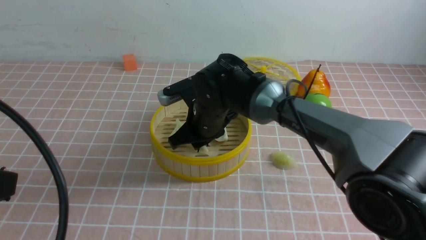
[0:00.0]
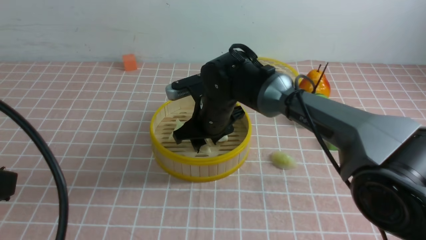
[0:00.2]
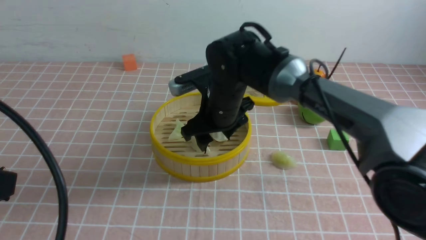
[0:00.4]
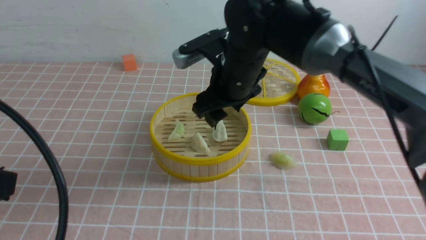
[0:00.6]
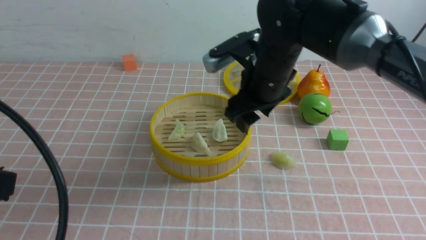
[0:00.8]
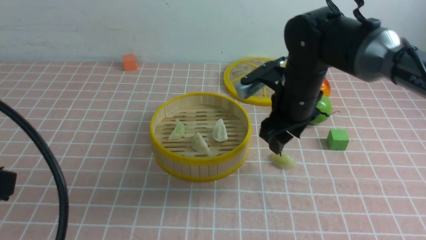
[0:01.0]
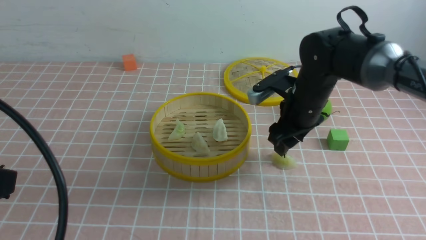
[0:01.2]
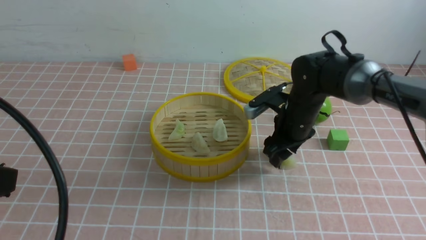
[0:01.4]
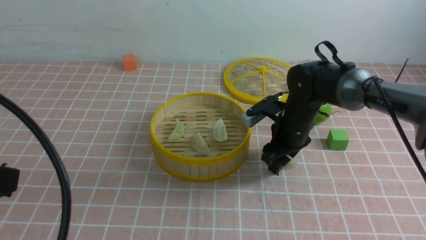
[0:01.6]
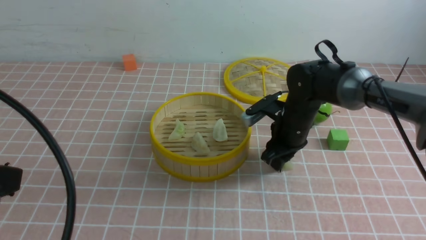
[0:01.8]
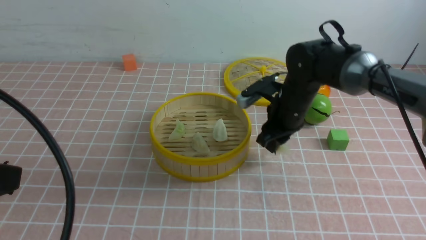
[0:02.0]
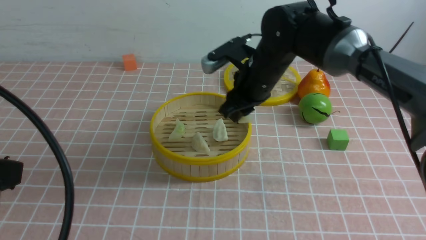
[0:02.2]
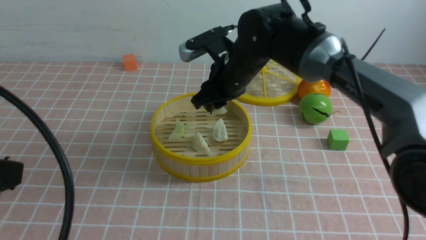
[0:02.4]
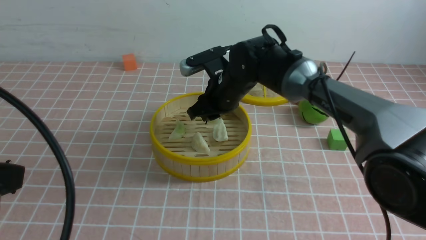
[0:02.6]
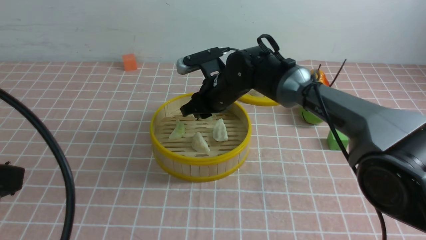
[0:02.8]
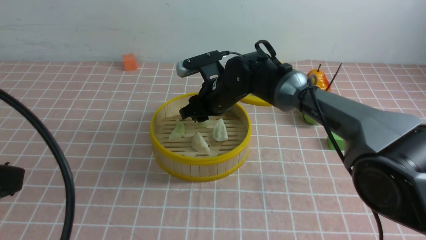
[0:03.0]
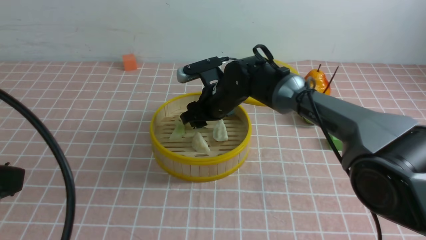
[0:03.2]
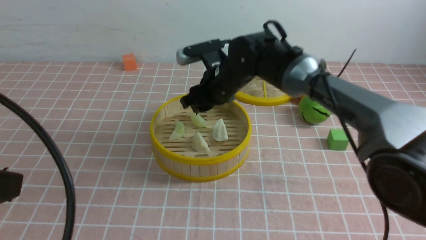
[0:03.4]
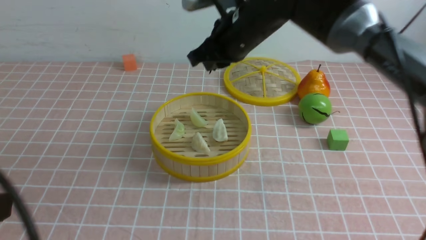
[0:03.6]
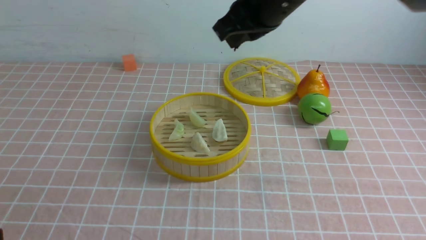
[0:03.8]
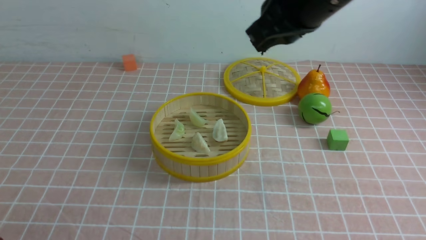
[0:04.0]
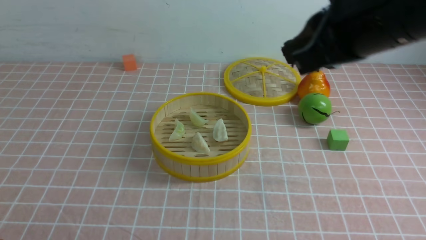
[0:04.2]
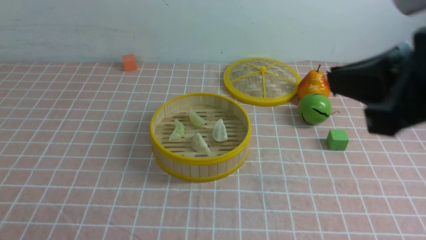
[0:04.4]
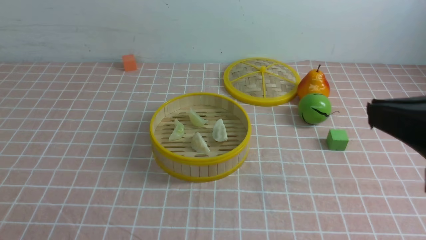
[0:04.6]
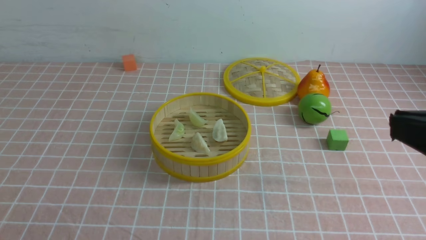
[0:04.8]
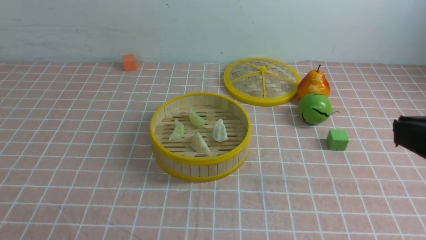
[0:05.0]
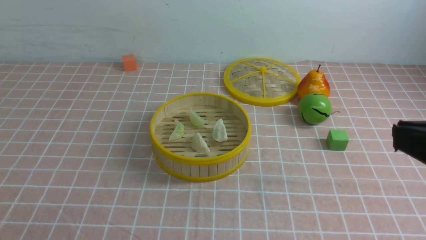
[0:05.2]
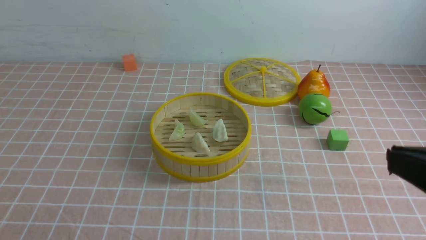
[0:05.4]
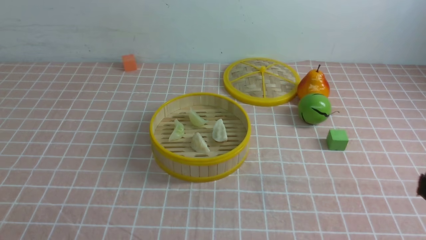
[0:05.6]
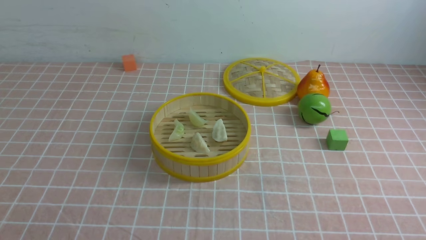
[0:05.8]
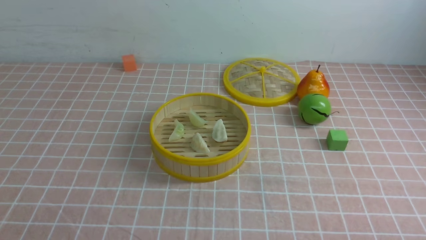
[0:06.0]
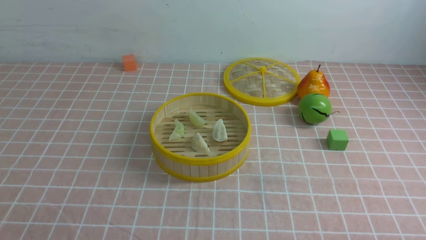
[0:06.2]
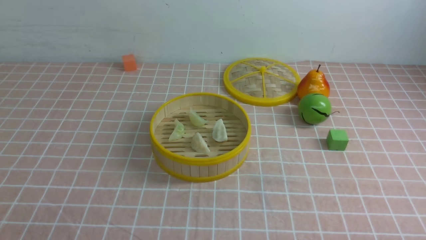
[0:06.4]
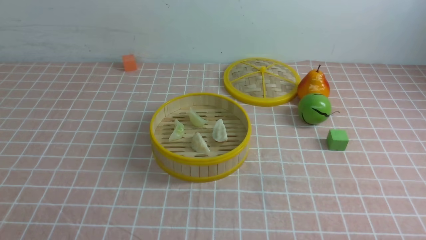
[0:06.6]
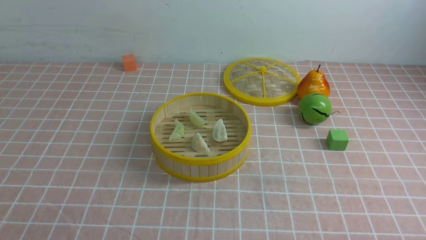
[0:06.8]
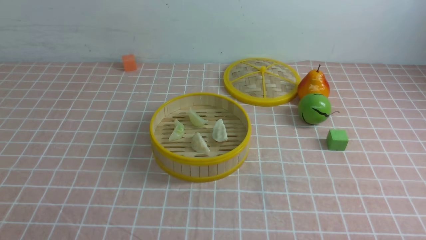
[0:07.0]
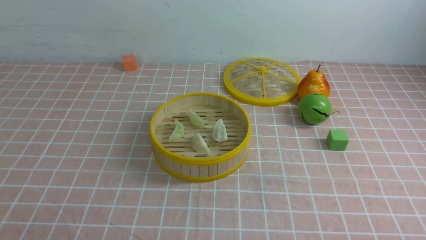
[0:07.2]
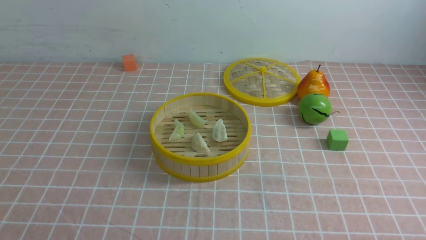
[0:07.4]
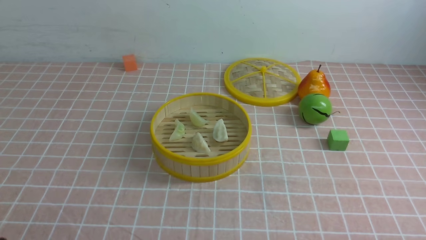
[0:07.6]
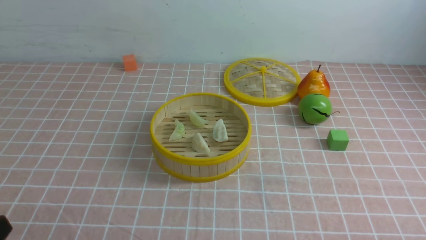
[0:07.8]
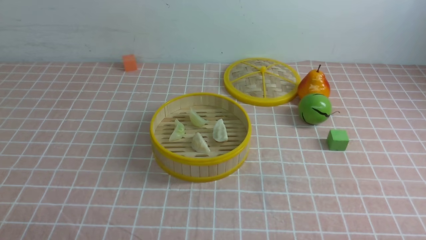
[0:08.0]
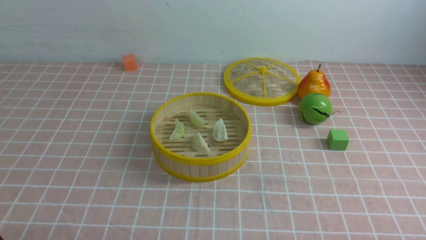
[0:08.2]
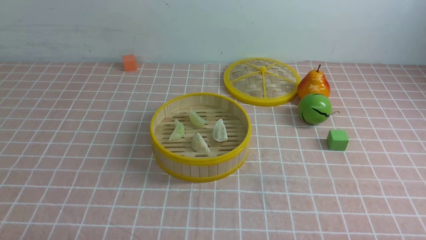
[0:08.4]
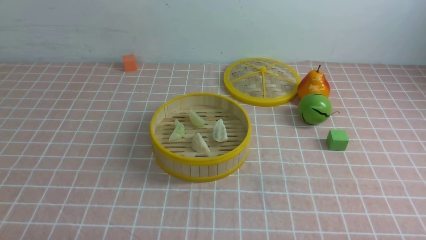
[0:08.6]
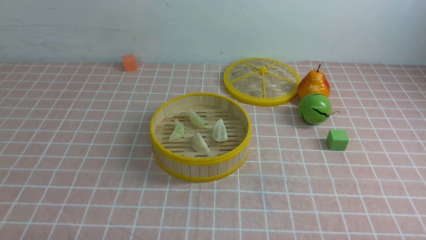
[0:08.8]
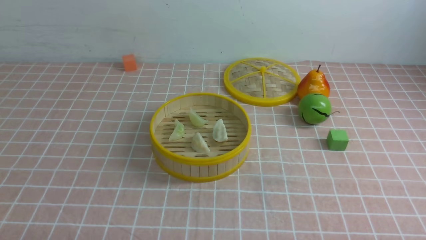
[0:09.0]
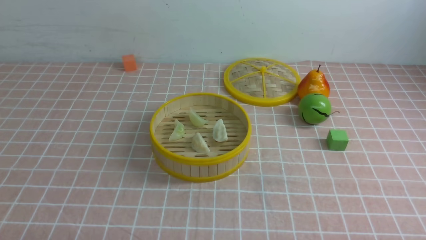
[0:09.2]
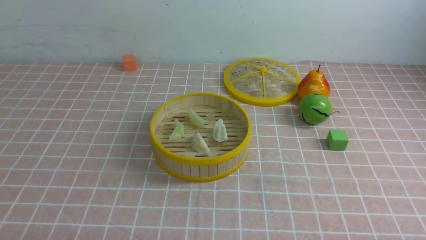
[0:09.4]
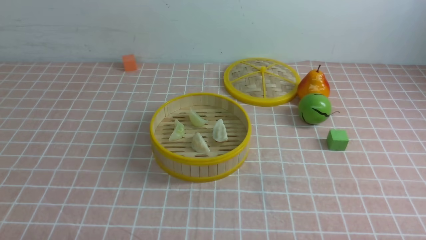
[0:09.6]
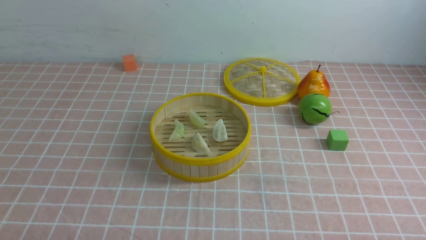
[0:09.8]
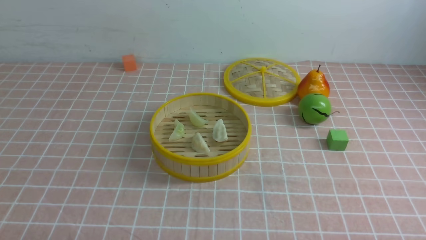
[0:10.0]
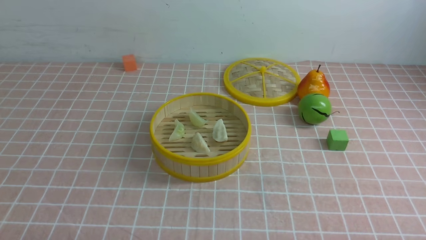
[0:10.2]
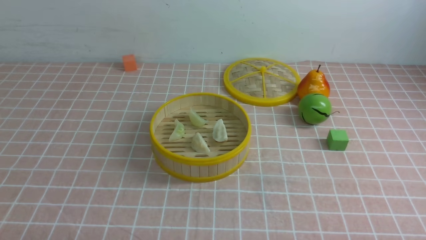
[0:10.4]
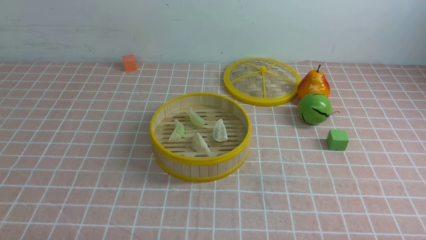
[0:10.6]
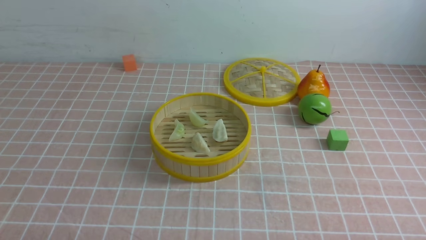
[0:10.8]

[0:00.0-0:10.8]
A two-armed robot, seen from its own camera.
Task of the whole recording: put the dumplings into the steamer on the table with the pink tablecloth.
Step, 0:00.6 to 0:01.8: use the right arm to grab a dumpling.
Step, 0:02.0 to 0:03.6: use the right arm to put the dumpling into the steamer.
0:00.0 to 0:01.6: The right gripper moves to the right, some 15 cm.
0:01.6 to 0:03.0: The right gripper heads to the left, covering about 15 cm.
0:03.0 to 0:04.6: The right gripper goes about 40 cm backward, to the right and upward, and closes. The left gripper is displaced downward and backward by some 10 cm.
0:04.6 to 0:06.2: The right gripper is displaced downward and to the right by about 25 cm.
0:09.2 to 0:10.8: Neither gripper changes place.

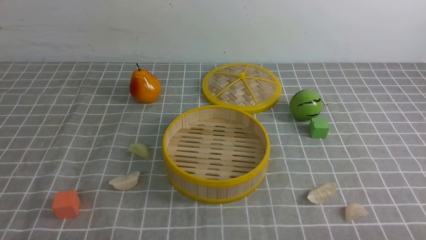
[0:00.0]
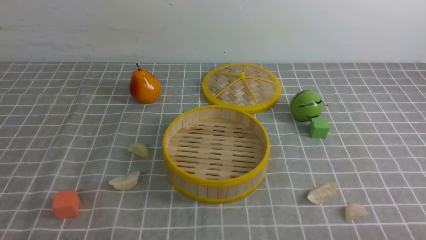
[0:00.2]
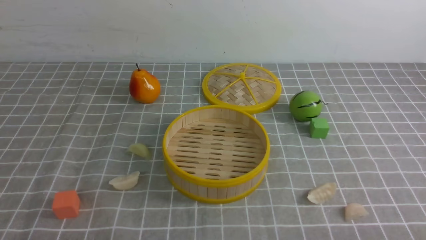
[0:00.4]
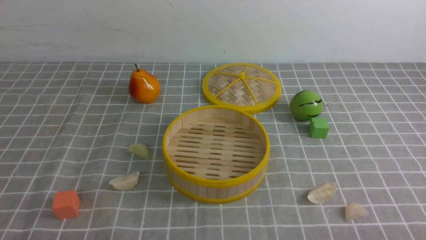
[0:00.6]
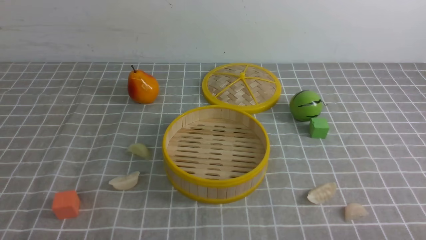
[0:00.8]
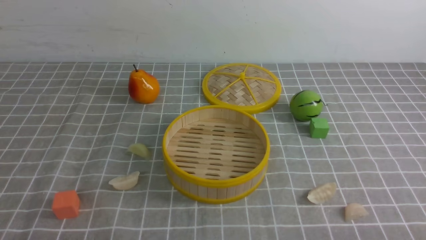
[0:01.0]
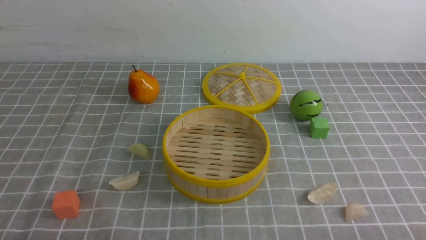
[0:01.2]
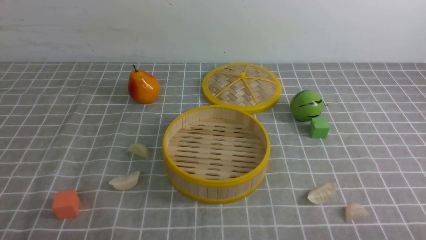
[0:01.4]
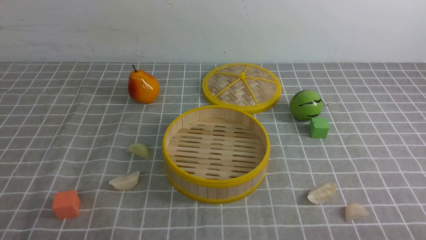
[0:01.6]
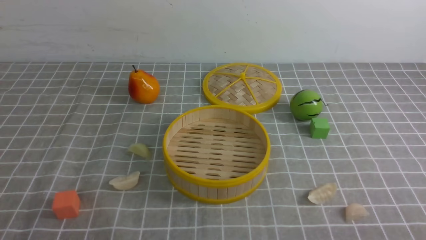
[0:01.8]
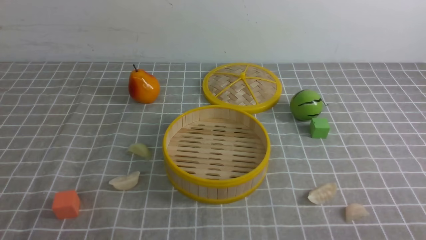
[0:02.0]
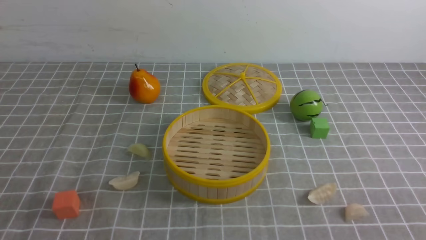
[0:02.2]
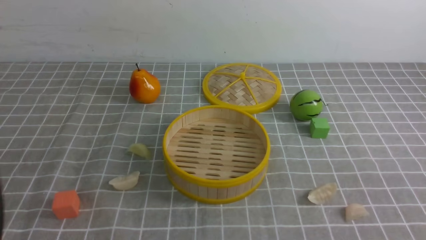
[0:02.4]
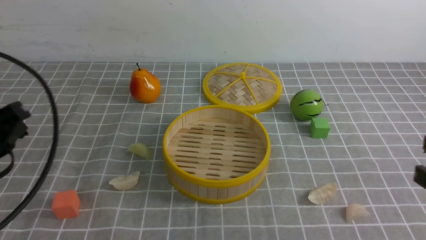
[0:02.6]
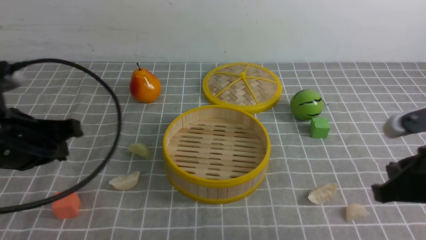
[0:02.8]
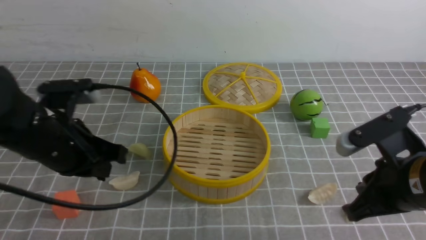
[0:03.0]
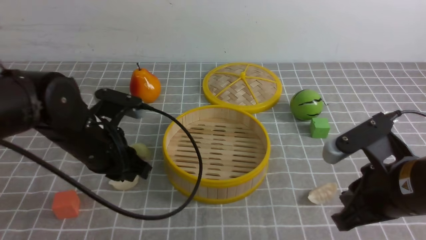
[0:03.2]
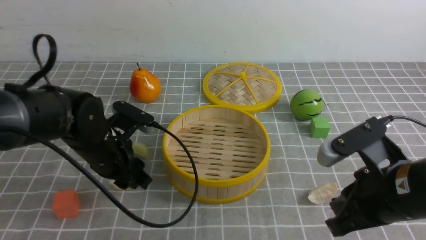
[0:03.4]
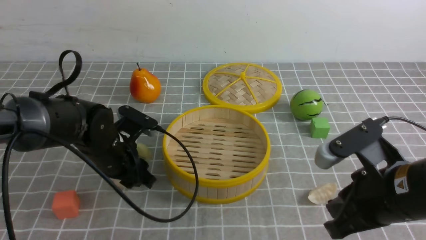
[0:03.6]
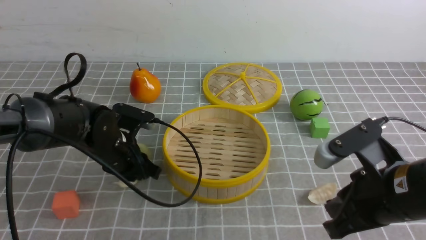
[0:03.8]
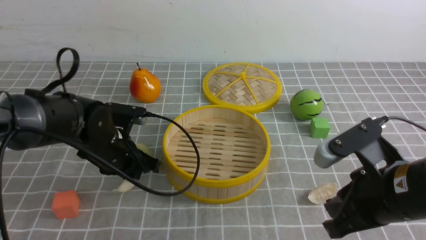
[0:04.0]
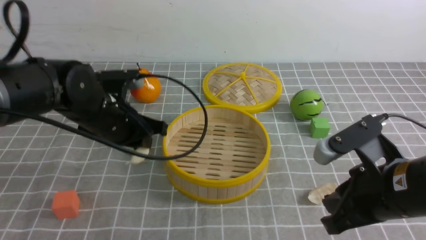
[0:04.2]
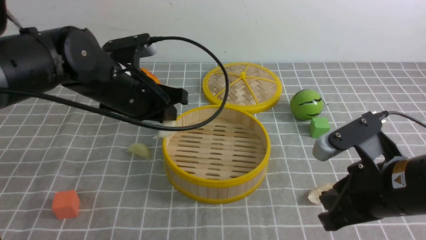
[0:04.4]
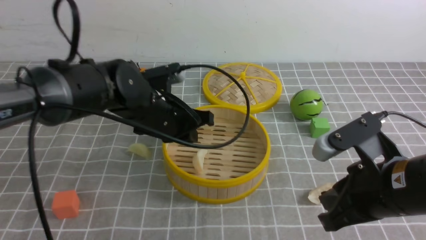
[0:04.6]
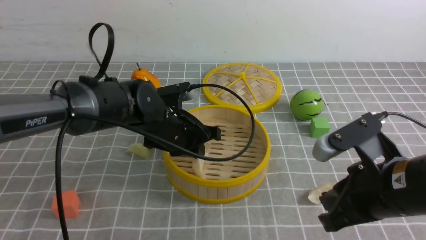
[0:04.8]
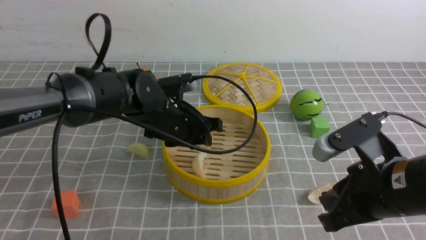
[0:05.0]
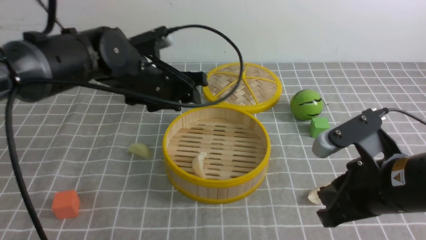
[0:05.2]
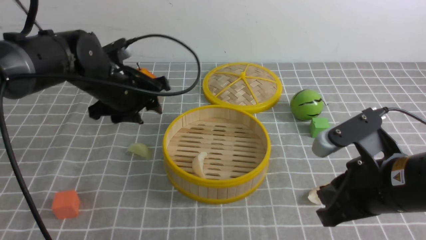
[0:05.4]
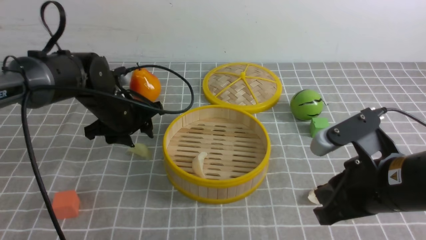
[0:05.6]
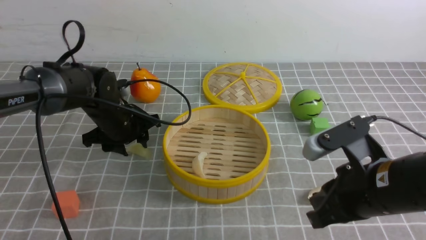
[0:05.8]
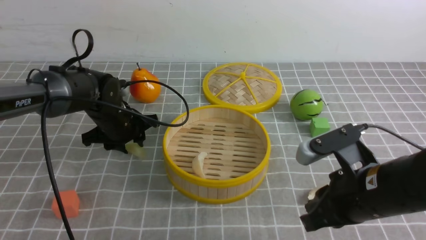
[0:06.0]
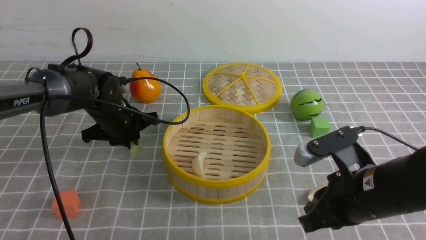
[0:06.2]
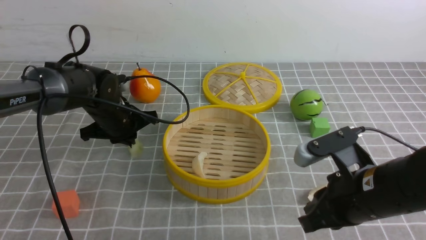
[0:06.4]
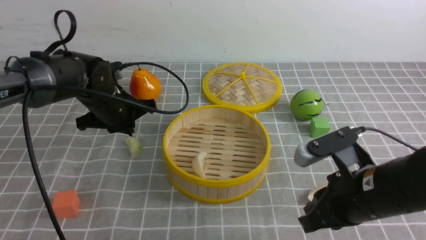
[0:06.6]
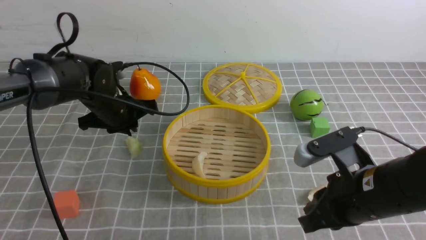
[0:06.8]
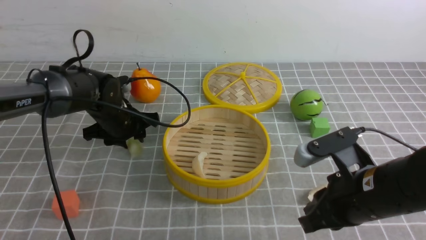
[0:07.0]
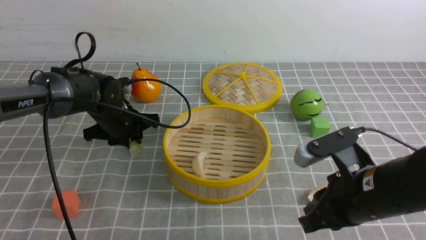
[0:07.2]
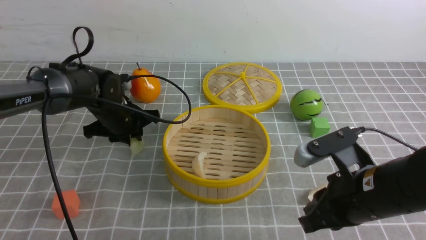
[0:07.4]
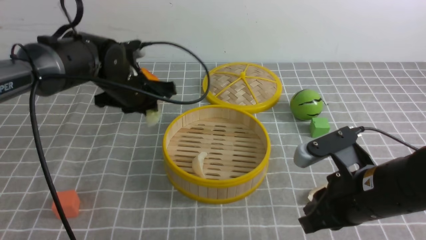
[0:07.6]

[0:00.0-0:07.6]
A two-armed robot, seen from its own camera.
Task of the whole recording: put the dumplings into the steamer on the table with the grey tablecloth.
Step, 0:00.0 to 0:04.0: use the left arm to grab a dumpling.
Step, 0:04.2 to 0:05.0: use the left arm to put the dumpling into the steamer.
Step, 0:05.2 to 0:07.4: use the left arm to grab a dumpling.
0:01.6 to 0:03.0: The left gripper shifts about 20 cm forward; the right gripper heads forward and to the left, covering some 15 cm, and closes its fingers.
0:03.0 to 0:04.6: The left gripper is displaced to the right and forward by some 15 cm, and opens, then closes once more.
0:04.6 to 0:06.0: The left gripper is displaced to the left, forward and downward by about 10 cm, and opens up.
0:06.0 to 0:07.6: The left gripper moves upward, some 5 cm, and closes and opens again.
